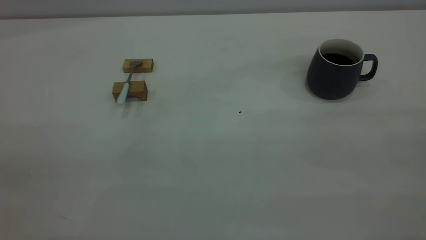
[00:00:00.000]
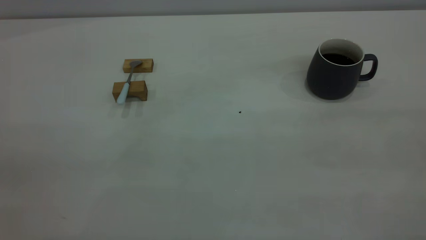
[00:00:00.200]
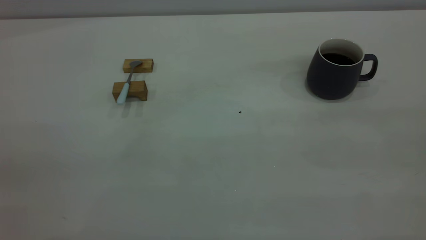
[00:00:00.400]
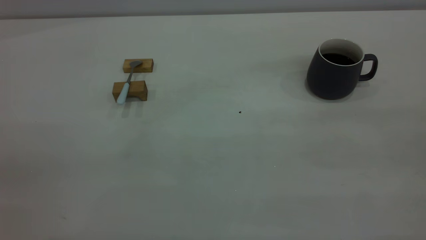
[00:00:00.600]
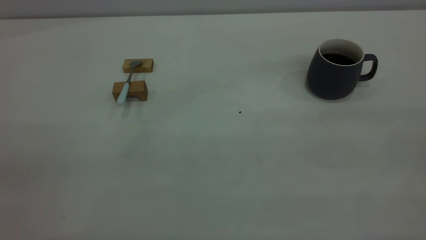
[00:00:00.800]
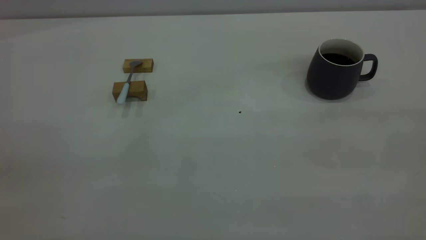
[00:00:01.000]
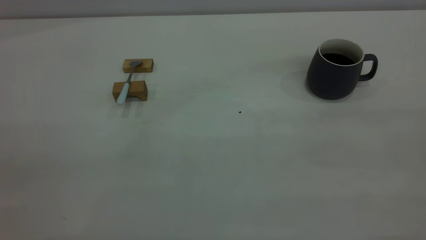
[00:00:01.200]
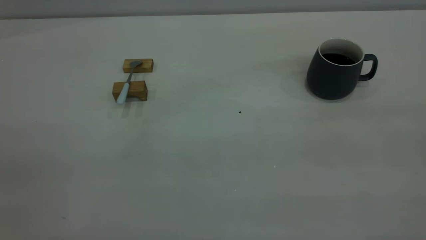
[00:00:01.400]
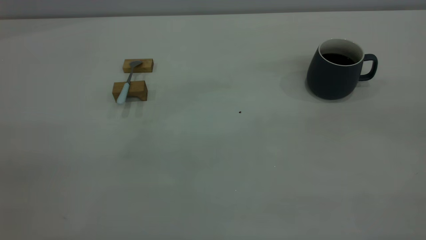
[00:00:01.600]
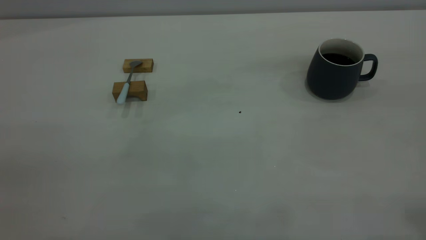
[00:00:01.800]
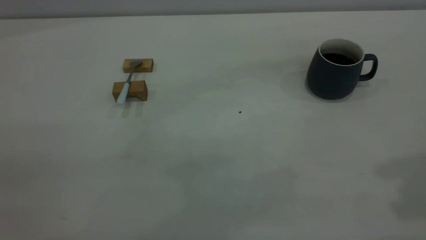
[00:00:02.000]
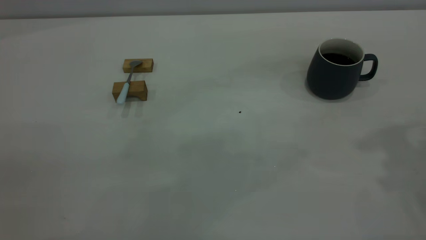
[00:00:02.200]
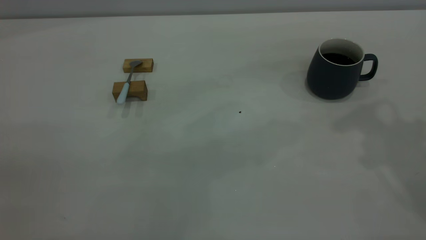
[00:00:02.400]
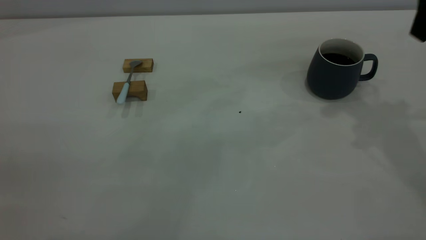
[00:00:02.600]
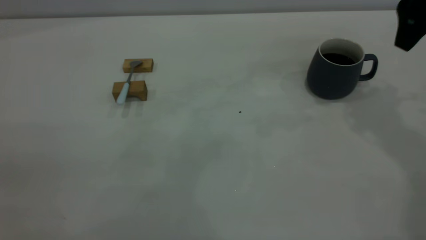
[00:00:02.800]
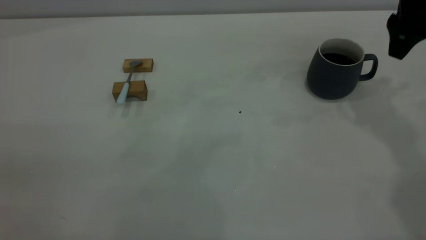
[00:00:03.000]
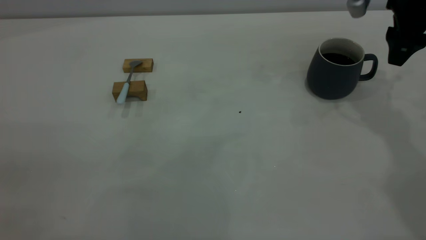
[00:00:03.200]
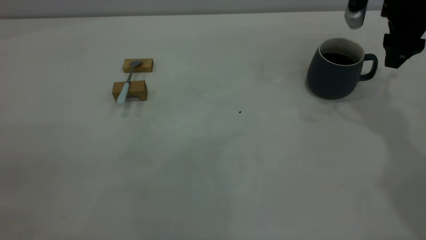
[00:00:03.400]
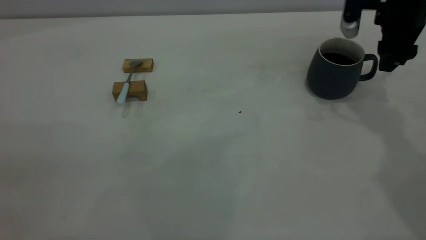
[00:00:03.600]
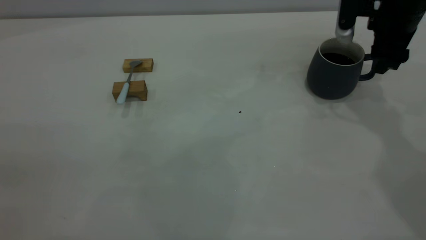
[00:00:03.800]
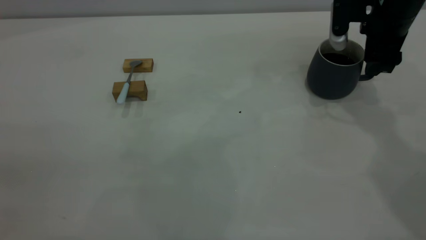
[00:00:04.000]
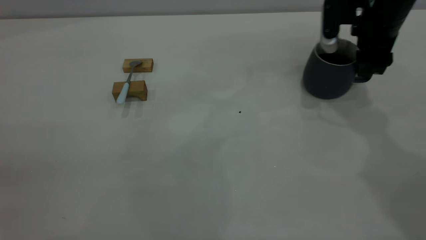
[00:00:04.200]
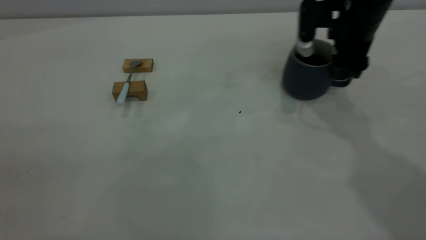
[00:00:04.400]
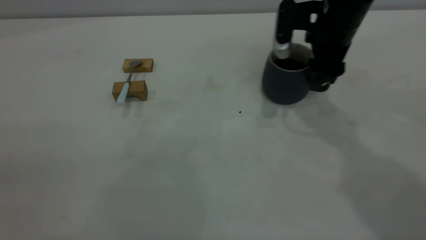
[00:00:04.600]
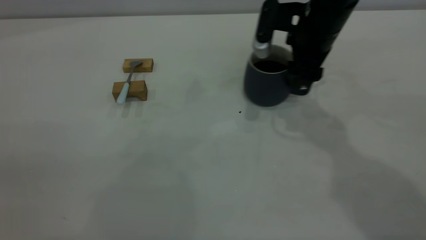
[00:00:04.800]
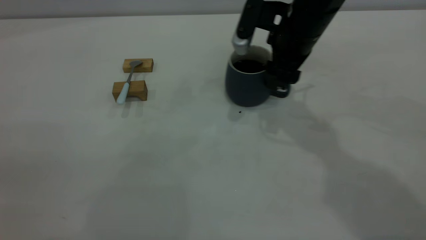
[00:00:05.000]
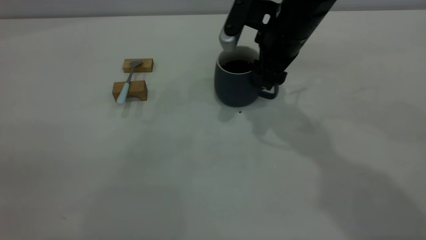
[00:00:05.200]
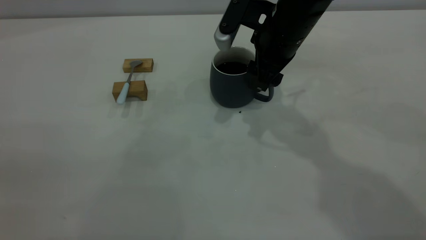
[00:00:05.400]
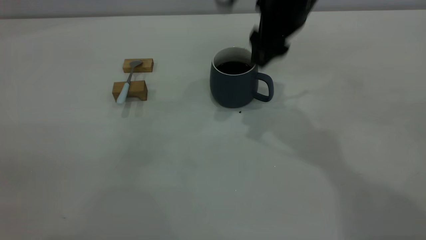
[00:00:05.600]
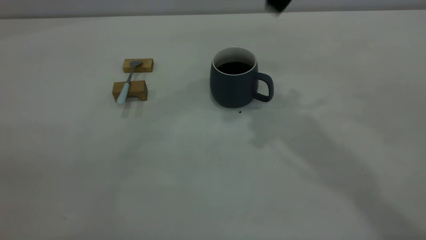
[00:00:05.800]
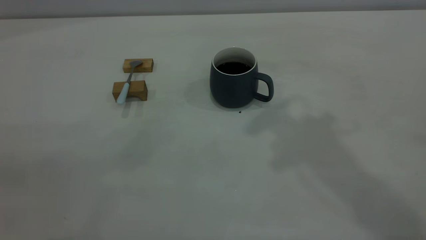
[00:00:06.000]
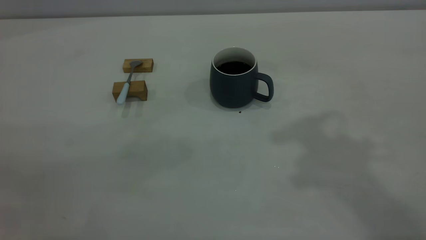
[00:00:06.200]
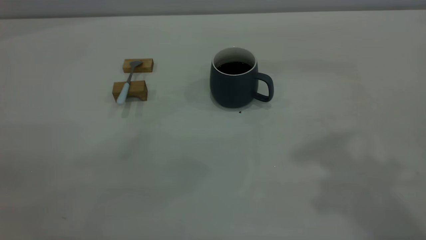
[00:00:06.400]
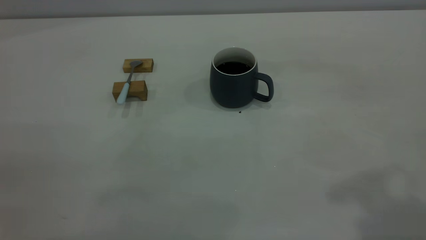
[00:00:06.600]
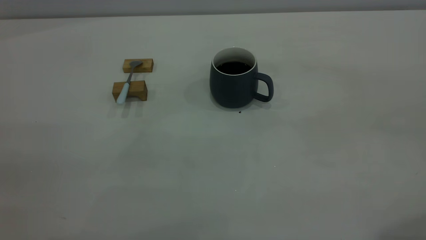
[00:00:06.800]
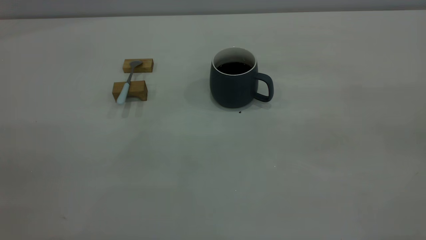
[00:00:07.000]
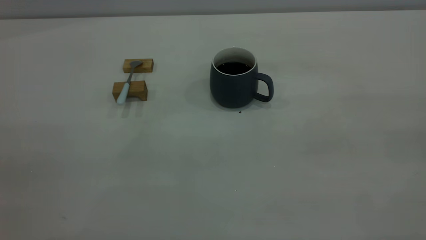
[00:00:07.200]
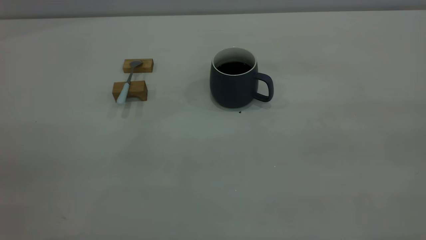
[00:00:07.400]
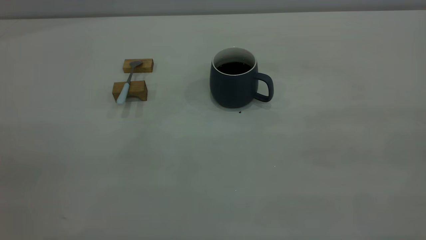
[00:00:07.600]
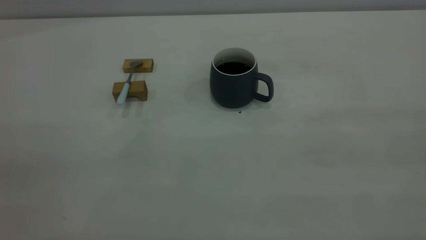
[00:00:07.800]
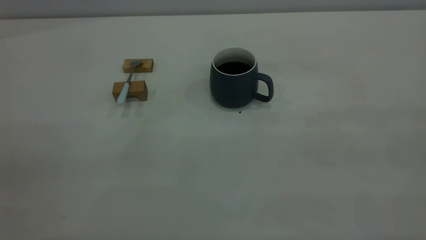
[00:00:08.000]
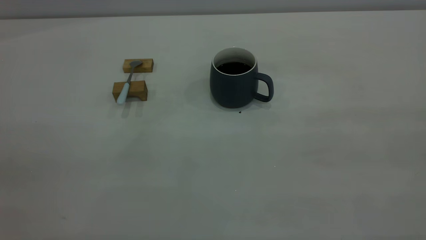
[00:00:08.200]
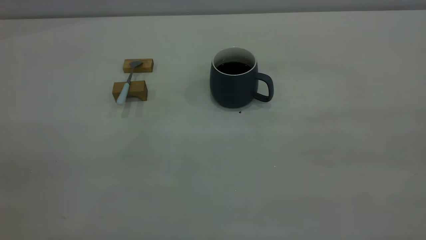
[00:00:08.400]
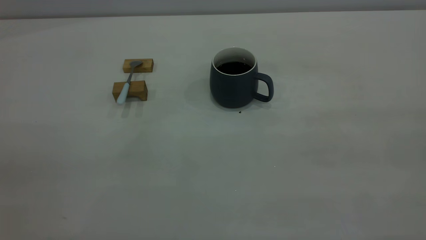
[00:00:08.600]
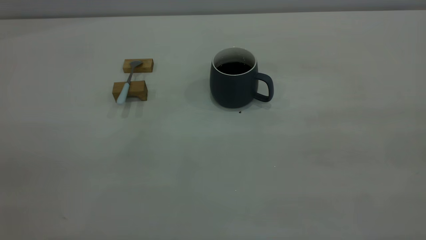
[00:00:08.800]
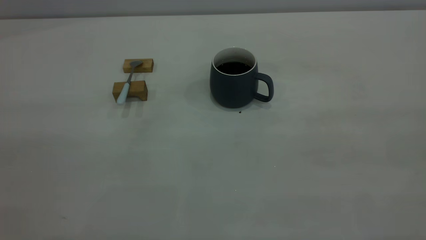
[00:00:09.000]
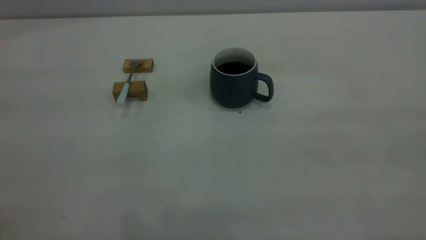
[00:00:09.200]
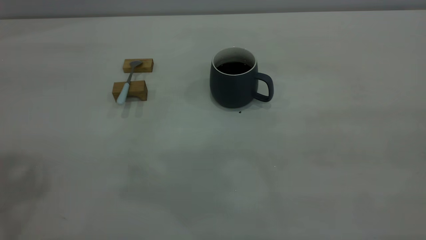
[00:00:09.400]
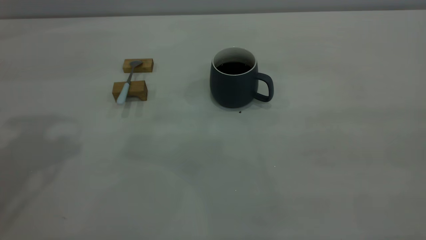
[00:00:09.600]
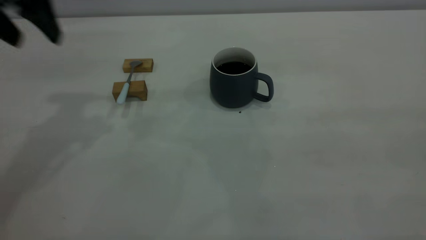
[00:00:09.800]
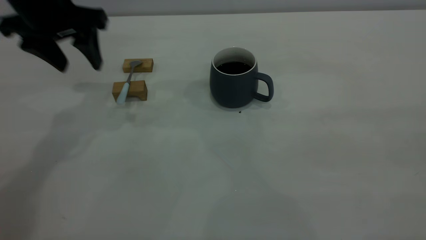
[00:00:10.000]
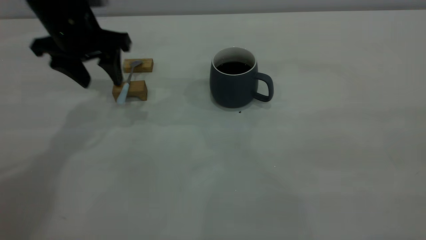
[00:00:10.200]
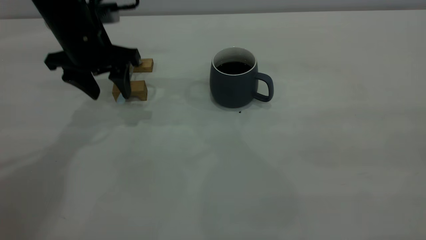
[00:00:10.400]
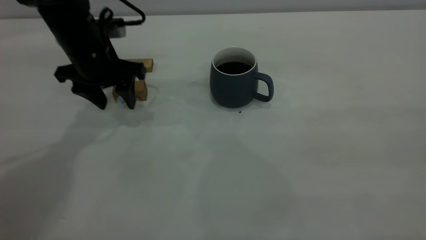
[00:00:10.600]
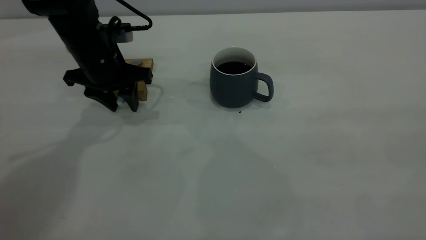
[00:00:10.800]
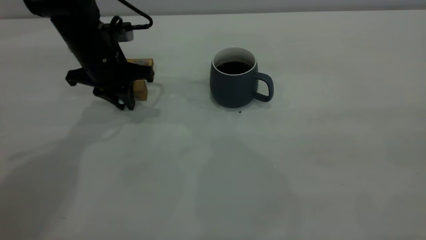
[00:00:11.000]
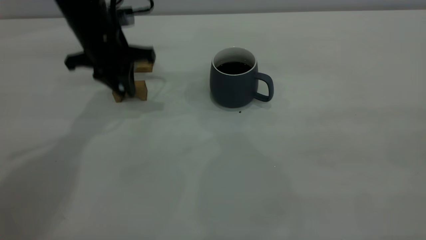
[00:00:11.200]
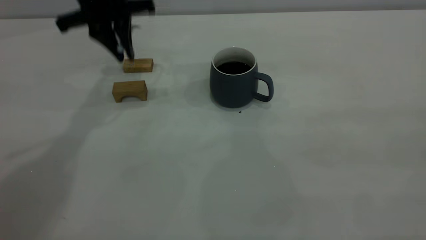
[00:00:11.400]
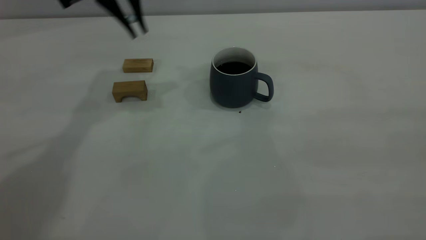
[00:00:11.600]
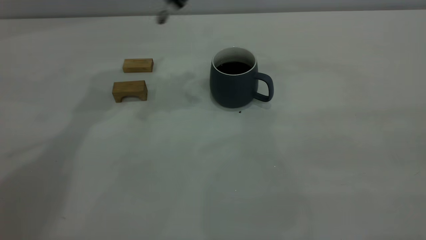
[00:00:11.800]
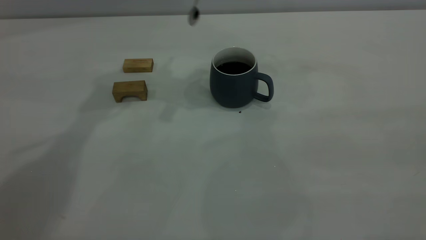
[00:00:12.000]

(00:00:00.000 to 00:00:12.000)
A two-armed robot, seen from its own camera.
Step, 00:00:00.000 - 00:00:05.600: Move the cup with coffee to the center of view.
Step, 00:00:05.800 - 00:00:11.200: Pick up the spoon.
00:00:01.600 - 00:00:03.000: The right gripper heads forward and downward, covering some 40 cm.
00:00:03.000 - 00:00:04.400: The right gripper heads to the left and downward, covering approximately 10 cm.
00:00:04.400 - 00:00:06.000: The right gripper travels upward and backward by about 30 cm.
00:00:09.000 - 00:00:10.400: The left gripper shifts roughly 40 cm forward and downward.
00:00:10.400 - 00:00:12.000: The left gripper travels upward and to the right by about 15 cm, and closes.

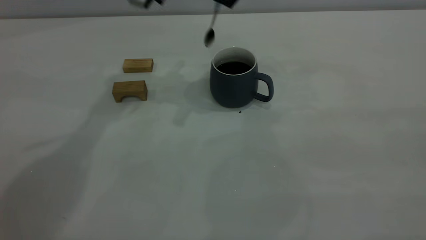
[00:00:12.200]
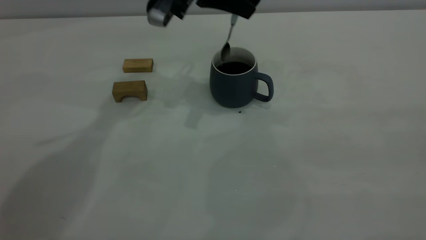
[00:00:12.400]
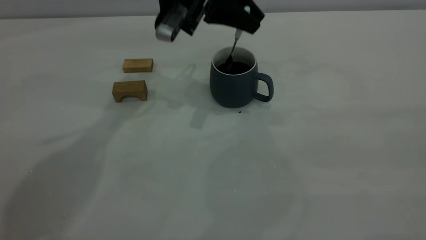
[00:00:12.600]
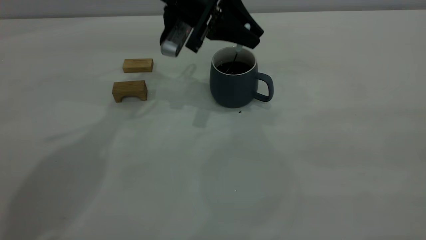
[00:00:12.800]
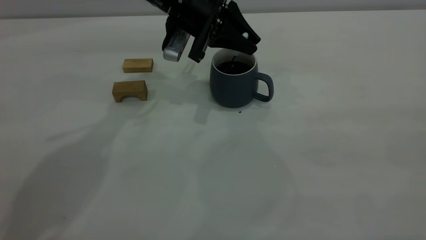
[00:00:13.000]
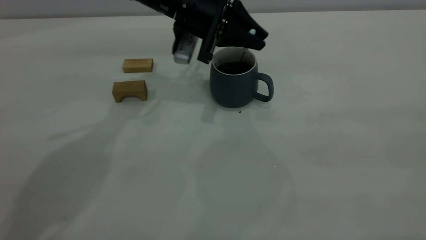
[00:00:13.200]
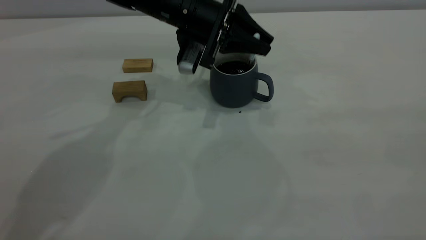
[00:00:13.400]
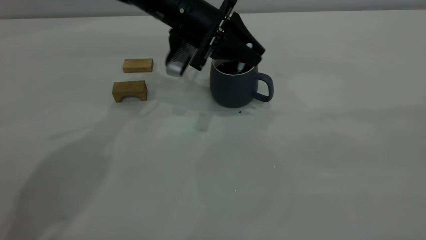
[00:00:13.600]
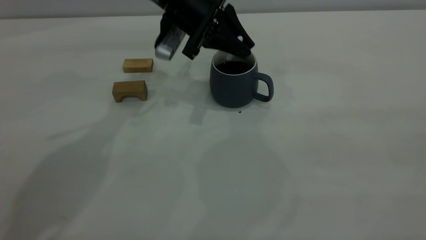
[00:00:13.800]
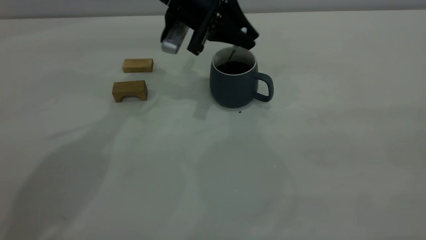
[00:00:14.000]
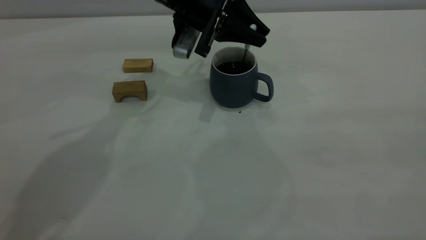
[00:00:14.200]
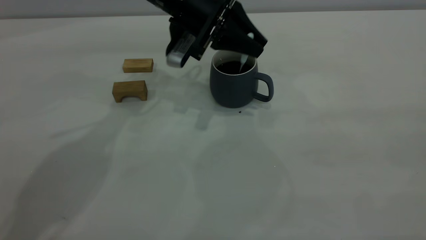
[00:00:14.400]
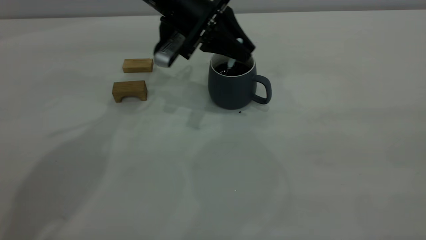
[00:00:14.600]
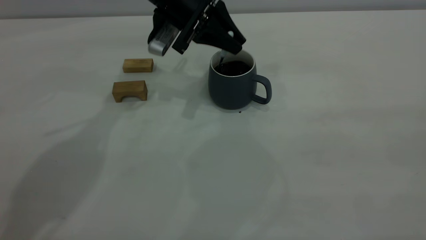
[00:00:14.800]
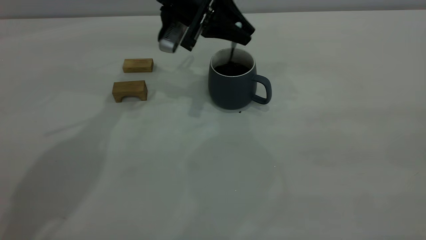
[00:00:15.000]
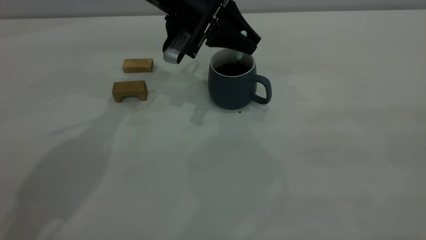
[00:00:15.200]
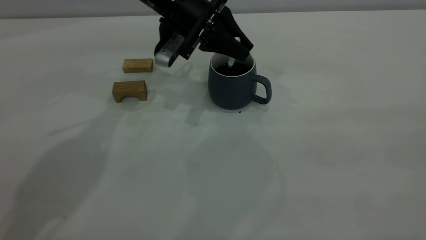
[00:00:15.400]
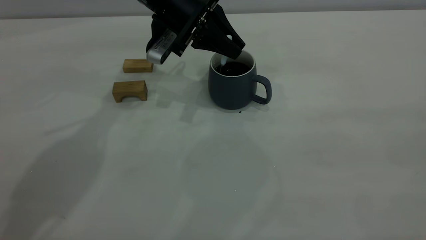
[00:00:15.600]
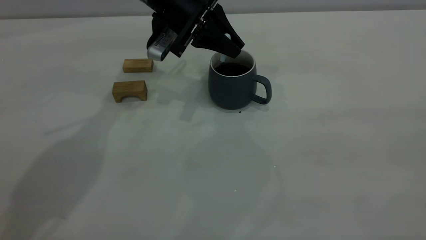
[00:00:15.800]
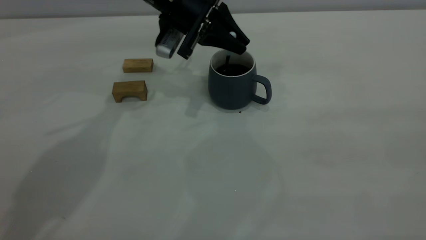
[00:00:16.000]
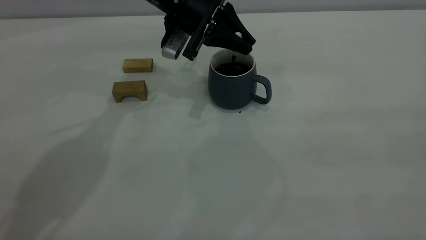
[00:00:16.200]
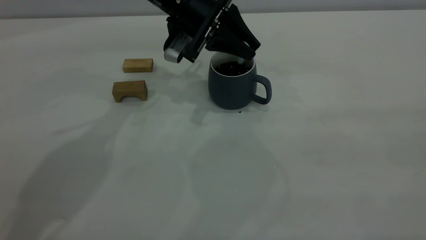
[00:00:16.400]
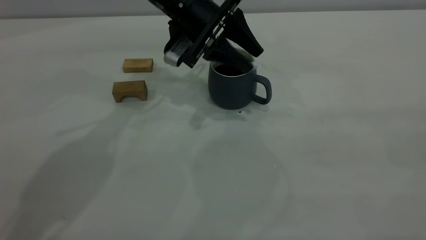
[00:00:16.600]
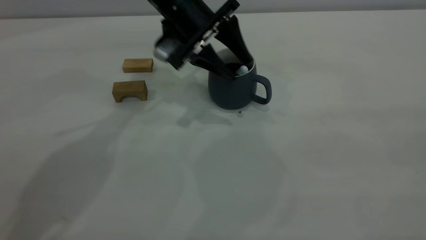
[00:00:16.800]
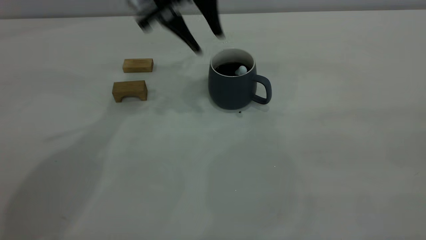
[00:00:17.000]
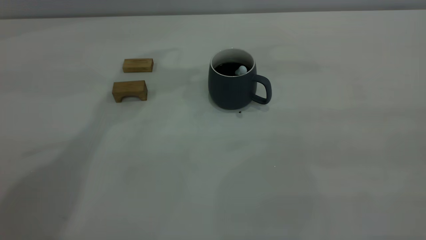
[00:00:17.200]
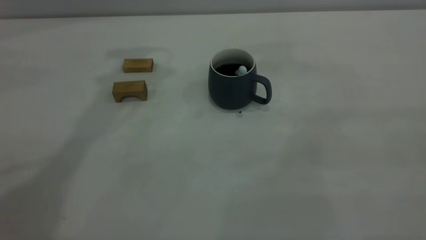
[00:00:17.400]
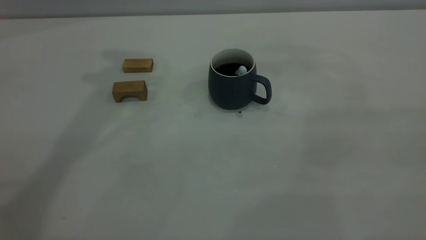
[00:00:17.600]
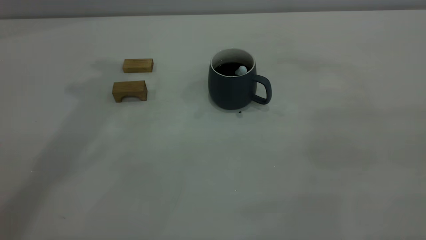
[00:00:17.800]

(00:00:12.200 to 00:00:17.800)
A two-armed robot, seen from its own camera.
Step, 00:00:12.200 - 00:00:17.000: Stir the coffee in the cup.
00:00:12.200 - 00:00:13.600: The left gripper moves downward, roughly 10 cm.
00:00:13.600 - 00:00:16.400: There are only small adjustments of the grippers.
00:00:16.400 - 00:00:17.800: The left gripper is displaced upward by about 30 cm, and opens up.
